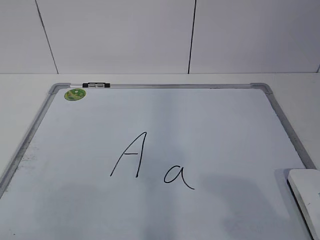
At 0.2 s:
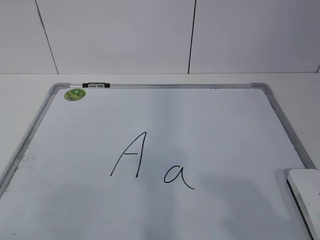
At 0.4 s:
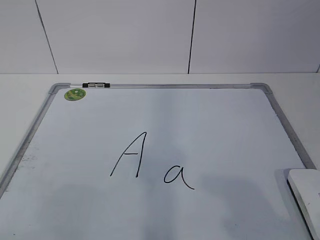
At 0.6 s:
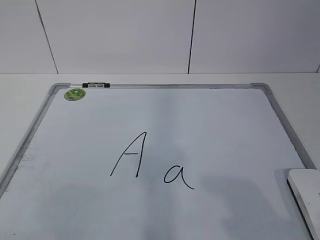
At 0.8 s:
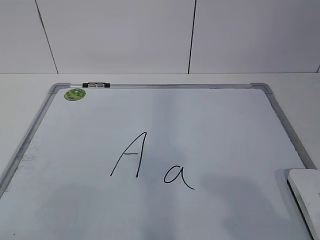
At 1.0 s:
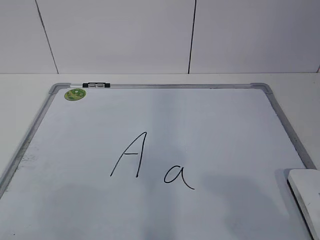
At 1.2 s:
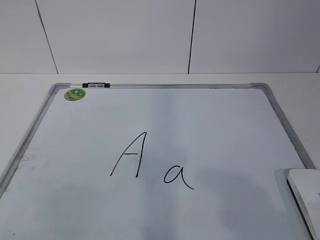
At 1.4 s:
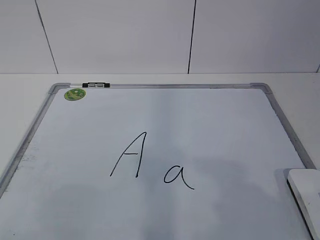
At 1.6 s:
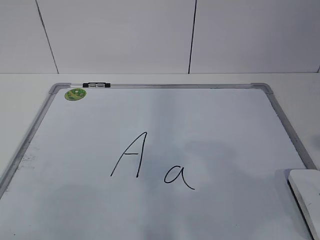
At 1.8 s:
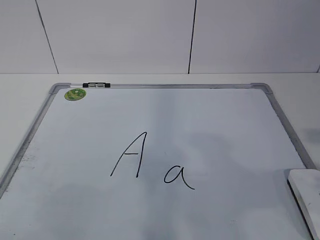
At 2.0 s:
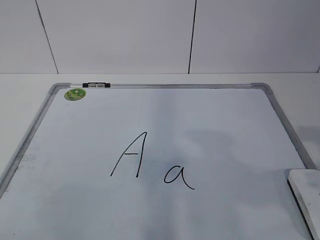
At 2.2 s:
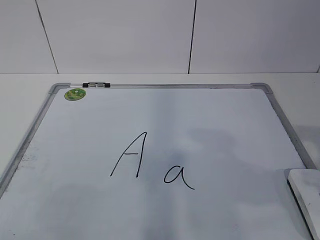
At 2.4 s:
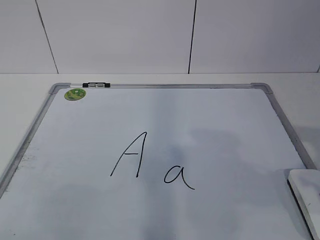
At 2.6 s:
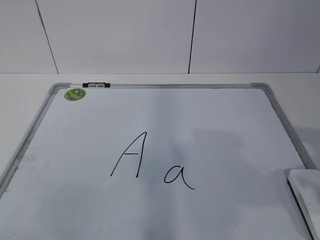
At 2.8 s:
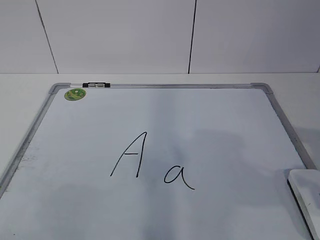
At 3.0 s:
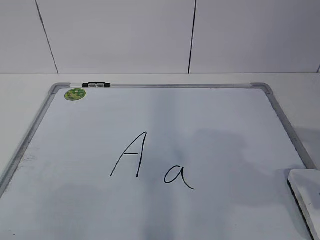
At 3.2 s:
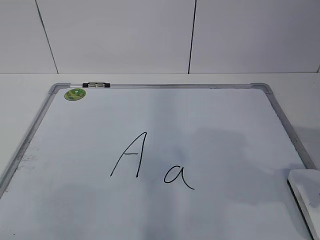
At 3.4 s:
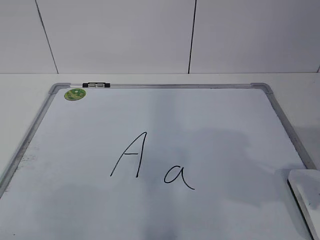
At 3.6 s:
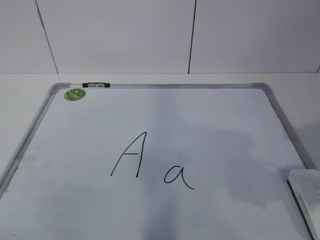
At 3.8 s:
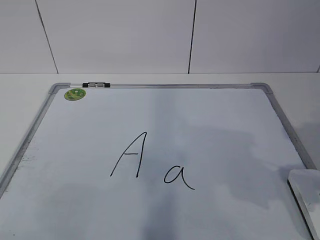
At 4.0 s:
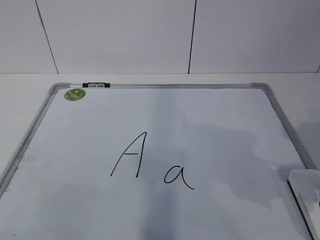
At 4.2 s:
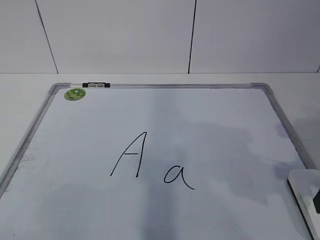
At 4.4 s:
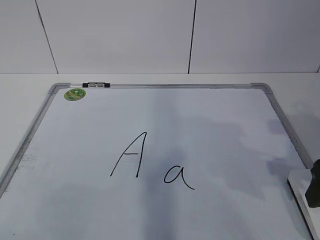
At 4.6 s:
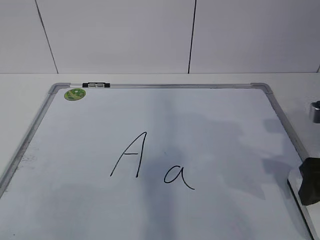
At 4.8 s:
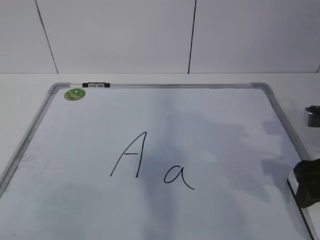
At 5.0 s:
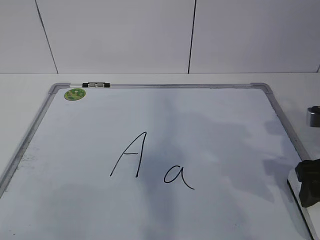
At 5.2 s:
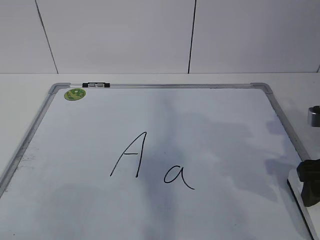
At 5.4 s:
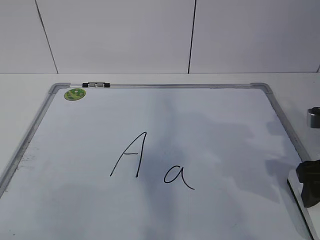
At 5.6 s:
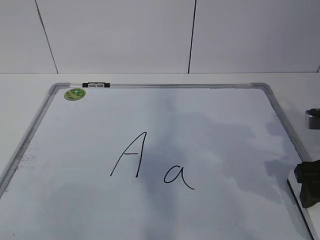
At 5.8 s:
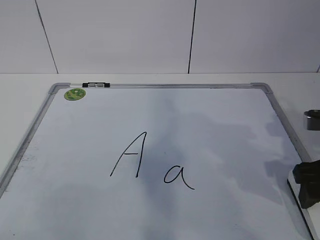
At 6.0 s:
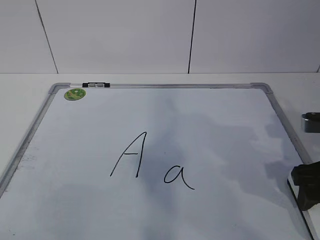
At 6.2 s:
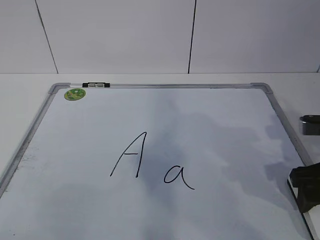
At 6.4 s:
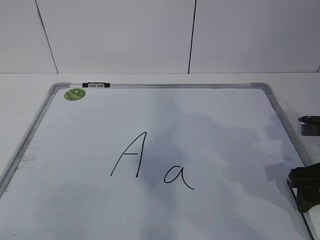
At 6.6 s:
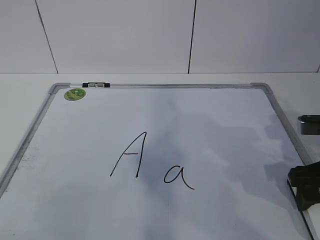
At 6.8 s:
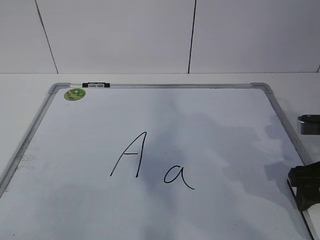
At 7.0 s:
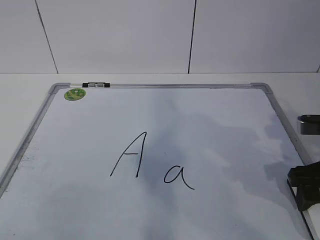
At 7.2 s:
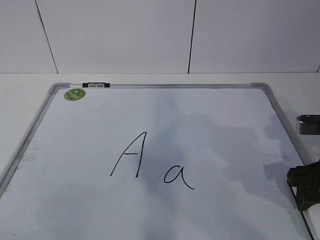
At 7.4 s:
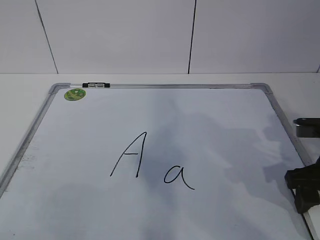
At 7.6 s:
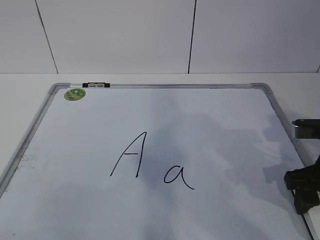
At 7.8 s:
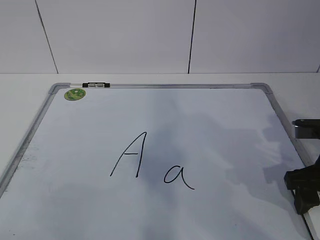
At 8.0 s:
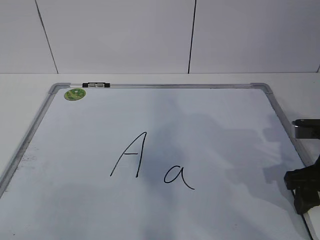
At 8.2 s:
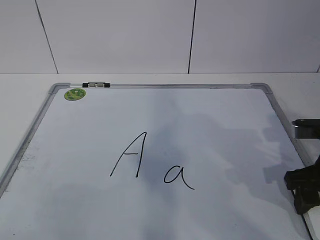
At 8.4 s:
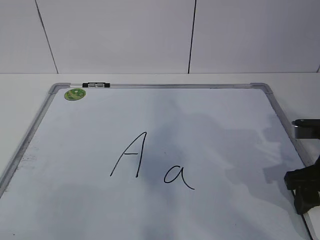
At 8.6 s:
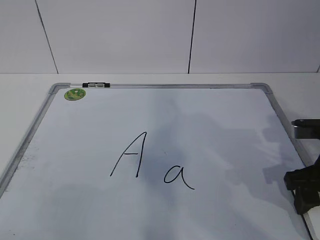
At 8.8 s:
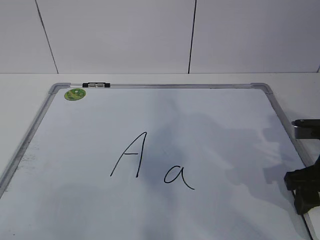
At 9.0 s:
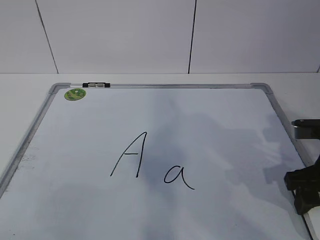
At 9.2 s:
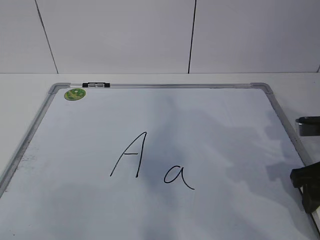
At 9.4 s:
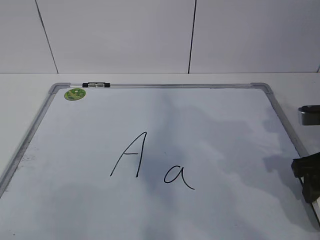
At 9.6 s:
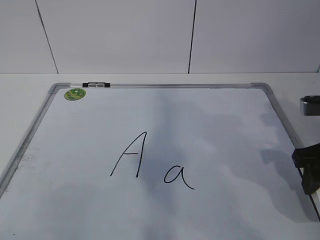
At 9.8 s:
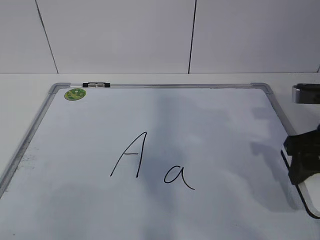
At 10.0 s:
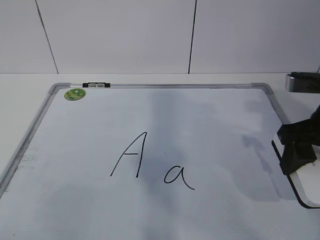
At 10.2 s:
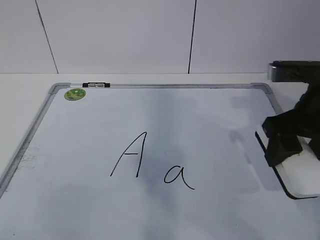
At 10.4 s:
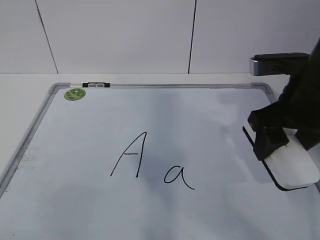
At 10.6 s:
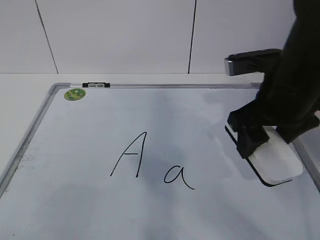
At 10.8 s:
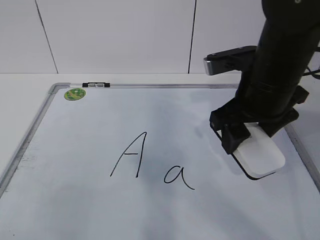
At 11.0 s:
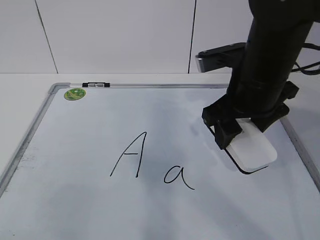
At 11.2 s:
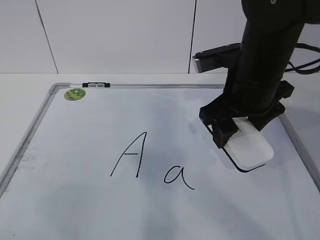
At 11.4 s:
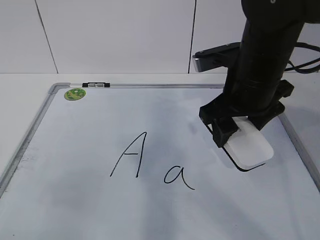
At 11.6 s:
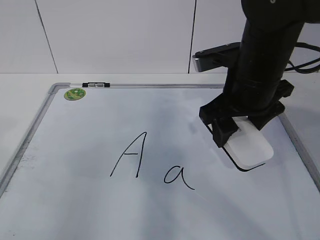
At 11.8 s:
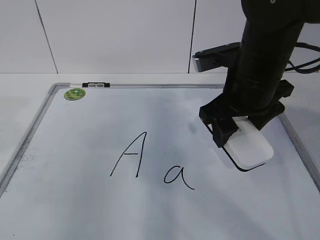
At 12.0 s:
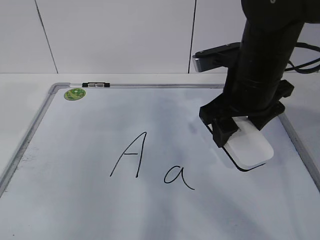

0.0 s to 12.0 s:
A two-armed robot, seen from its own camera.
Task of the whole recording: pick up the eraser on the blackboard and erase the letter "a".
Step, 7.6 to 11.8 s: Hold the drawing board steady with your left hand.
3.0 to 4.4 s: The right gripper moves forward, approximately 5 cm.
4.4 to 6.0 s: The grippers move only a little.
6.0 to 7.6 s: The right gripper closes.
7.6 to 9.0 s: Both grippers stay about where they are.
9.0 to 10.4 s: The right gripper goes about 10 cm upward and to the left.
10.4 to 12.0 s: The right gripper moves to the left, about 5 cm. Meanwhile the left gripper travels forward by approximately 20 cm.

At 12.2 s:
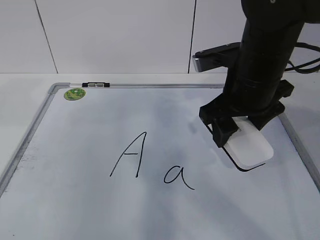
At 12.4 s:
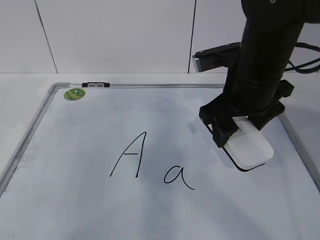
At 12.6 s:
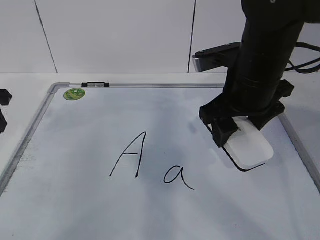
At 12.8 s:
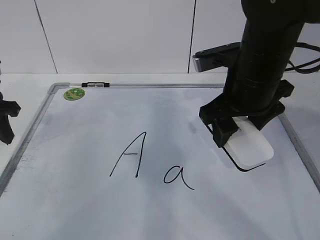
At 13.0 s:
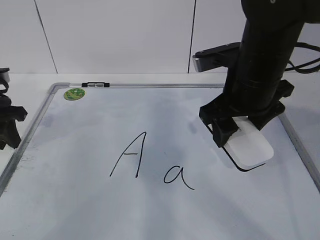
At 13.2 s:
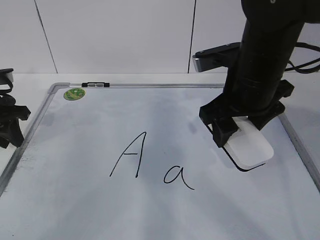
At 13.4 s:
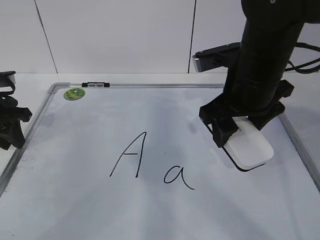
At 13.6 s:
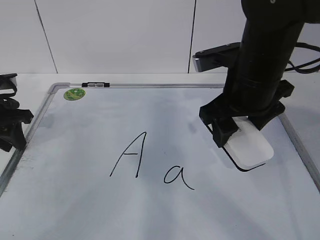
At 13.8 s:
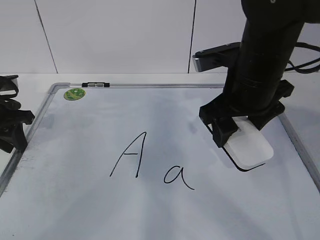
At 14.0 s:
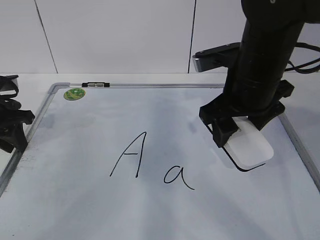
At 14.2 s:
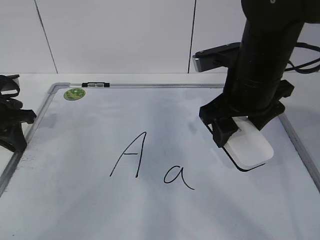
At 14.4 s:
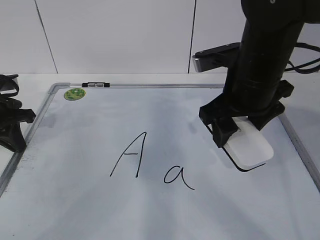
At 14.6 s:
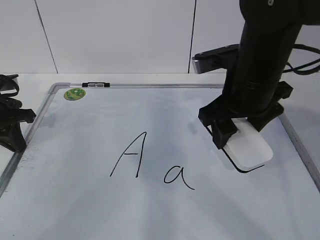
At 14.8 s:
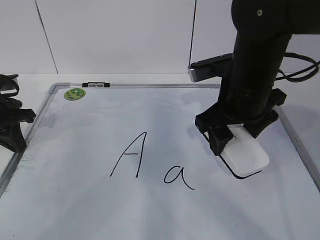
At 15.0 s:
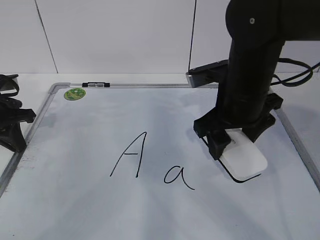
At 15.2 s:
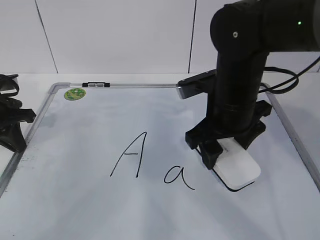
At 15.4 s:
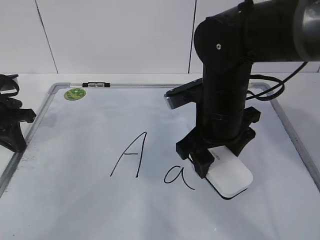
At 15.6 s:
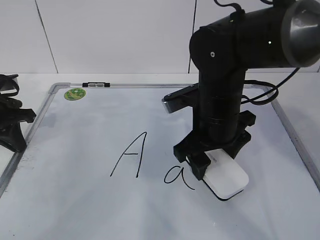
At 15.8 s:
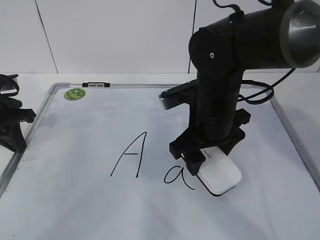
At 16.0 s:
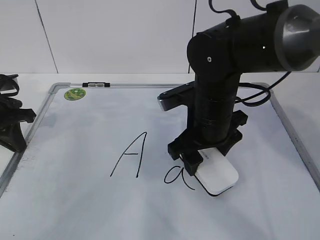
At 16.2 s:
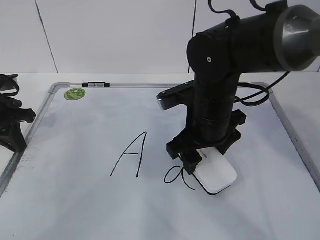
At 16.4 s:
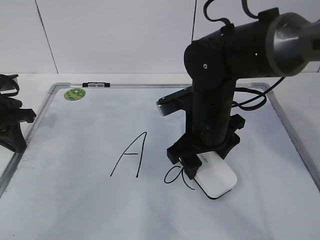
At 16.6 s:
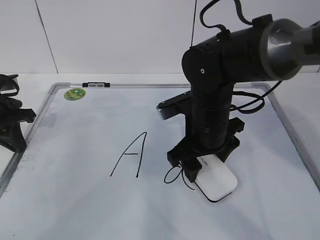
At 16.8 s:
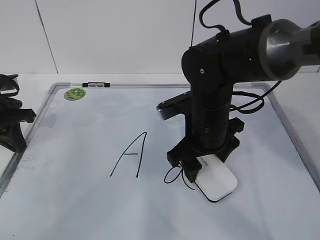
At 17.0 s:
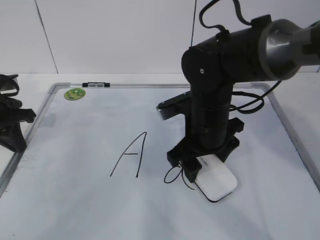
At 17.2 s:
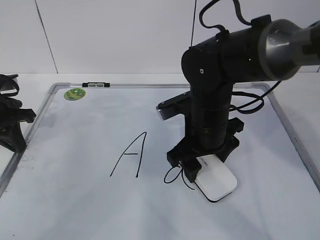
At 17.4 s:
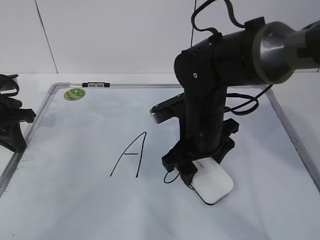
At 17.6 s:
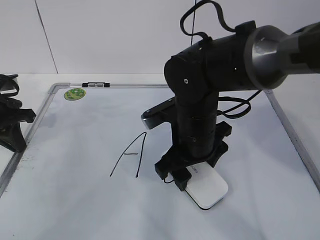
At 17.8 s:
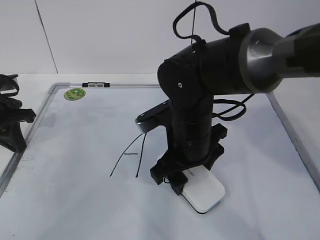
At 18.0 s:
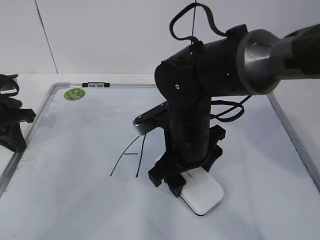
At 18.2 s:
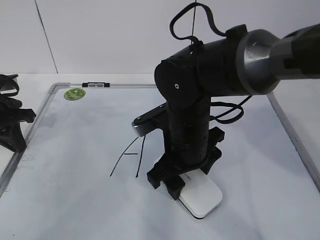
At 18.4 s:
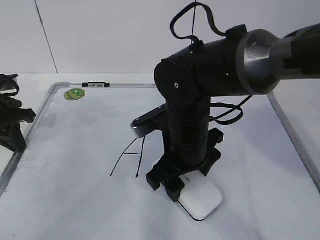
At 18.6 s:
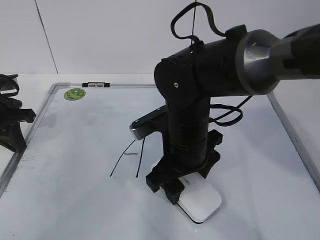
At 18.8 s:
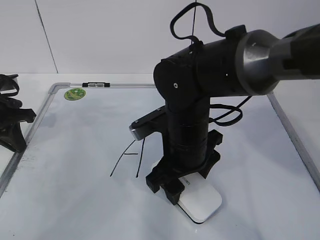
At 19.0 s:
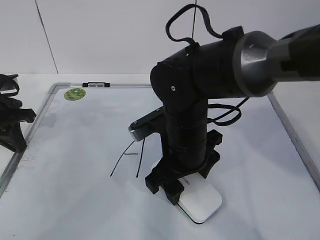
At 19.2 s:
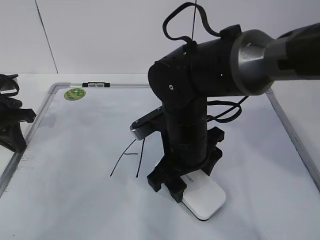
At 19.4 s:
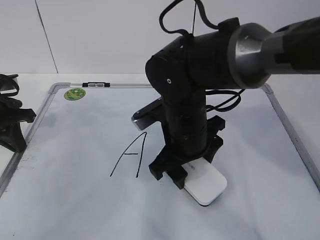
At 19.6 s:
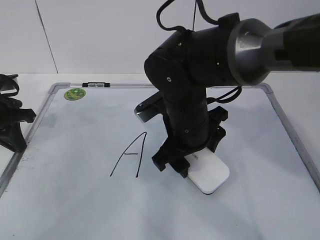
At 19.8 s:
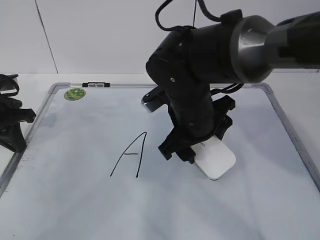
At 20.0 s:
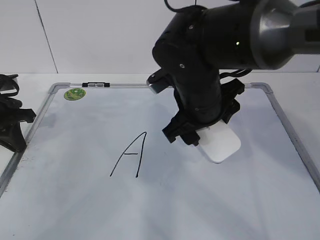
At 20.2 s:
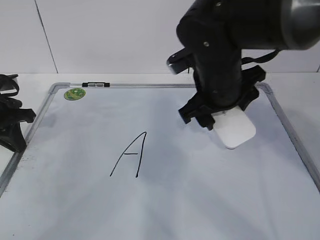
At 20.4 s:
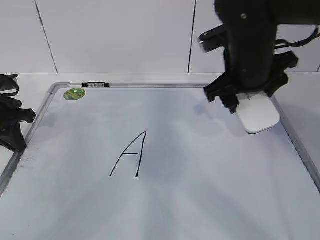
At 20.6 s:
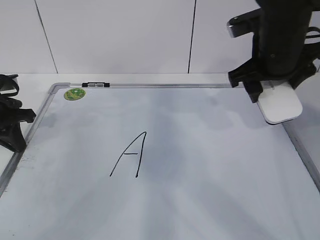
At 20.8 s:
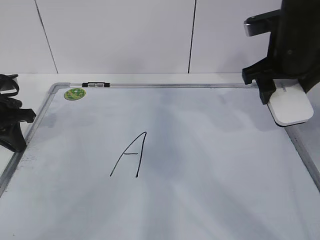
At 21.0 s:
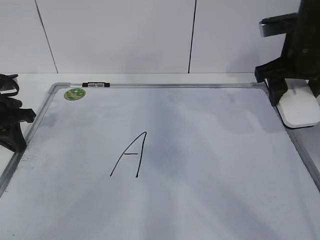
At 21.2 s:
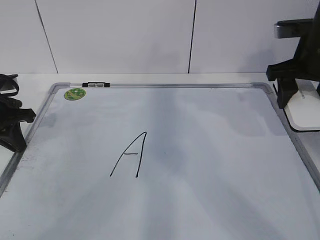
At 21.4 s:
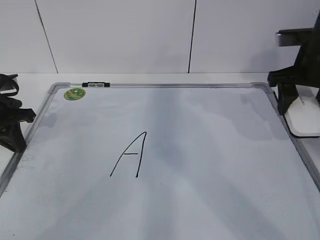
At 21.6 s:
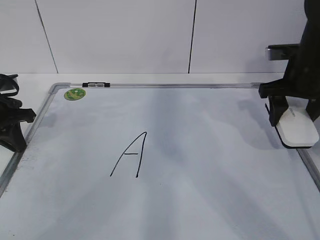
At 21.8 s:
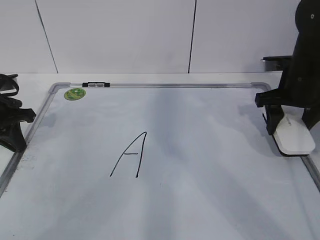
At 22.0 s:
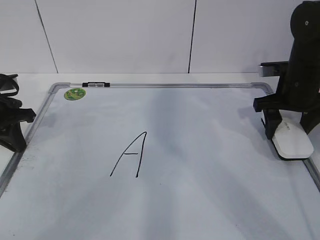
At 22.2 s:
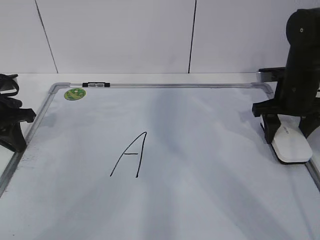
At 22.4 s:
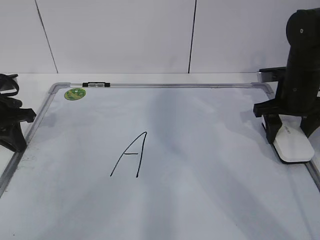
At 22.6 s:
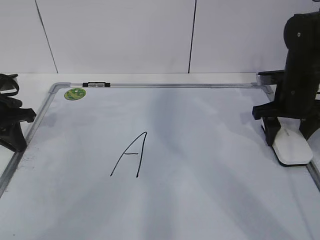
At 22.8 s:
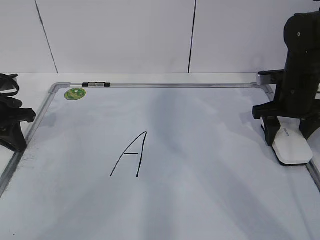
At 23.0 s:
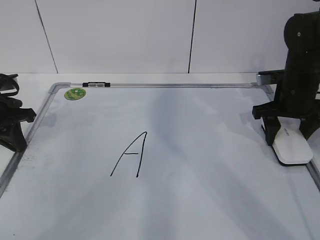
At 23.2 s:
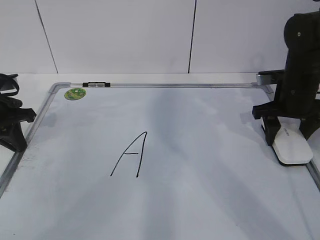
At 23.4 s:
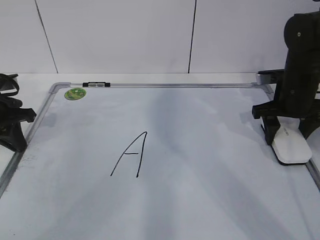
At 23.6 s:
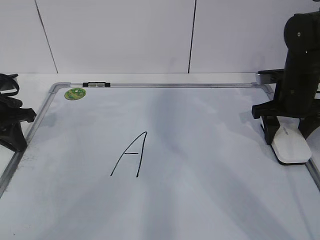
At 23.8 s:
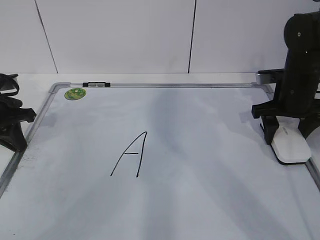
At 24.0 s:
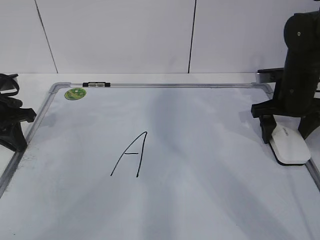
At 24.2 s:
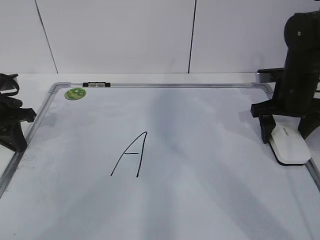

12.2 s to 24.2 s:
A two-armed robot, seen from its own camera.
Task of the whole recording: pick up the eraser on the blackboard and erase the letter "a".
Step, 12.2 to 15.8 s: Erase the letter a with your right hand.
Step, 16.0 to 19.8 s: Put down the eraser with your right hand.
12.2 to 13.8 s: The left gripper is displaced downward and forward by about 20 cm.
13.8 to 15.2 s: The left gripper closes its fingers.
15.2 to 16.6 s: The right gripper moves roughly 5 cm.
16.6 to 19.8 s: There are only small adjustments of the grippers.
19.8 to 21.2 s: The right gripper heads to the right, covering some 20 cm.
21.2 to 22.6 s: The right gripper moves downward, about 10 cm.
22.6 to 24.2 s: The right gripper opens its fingers.
